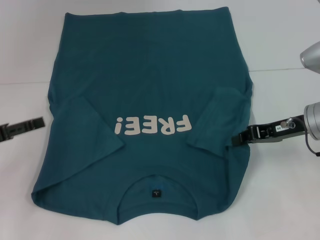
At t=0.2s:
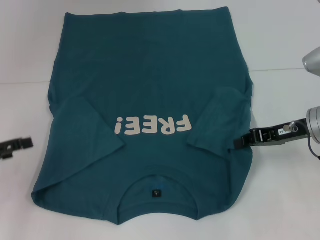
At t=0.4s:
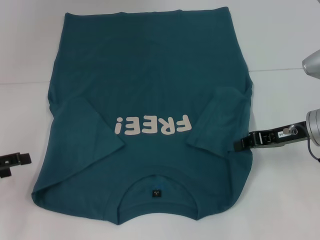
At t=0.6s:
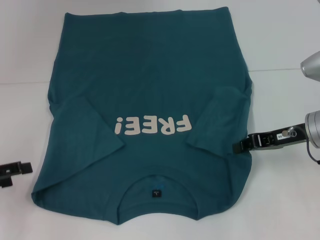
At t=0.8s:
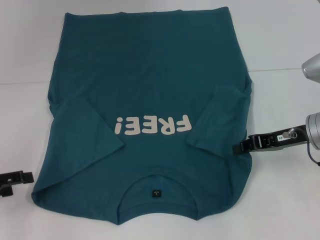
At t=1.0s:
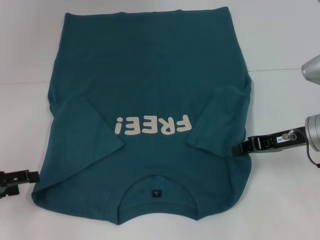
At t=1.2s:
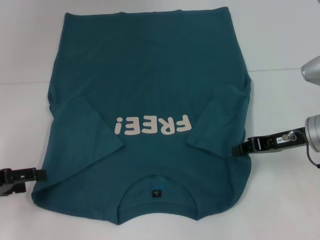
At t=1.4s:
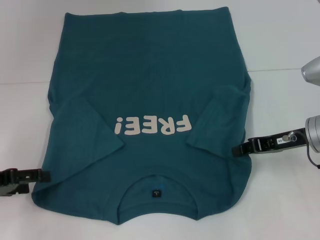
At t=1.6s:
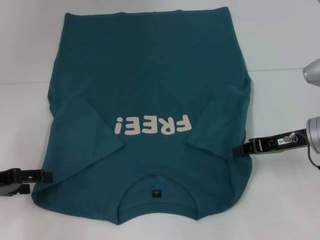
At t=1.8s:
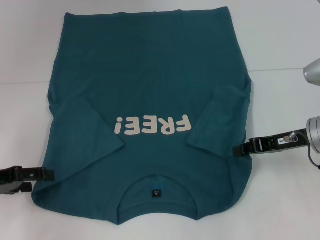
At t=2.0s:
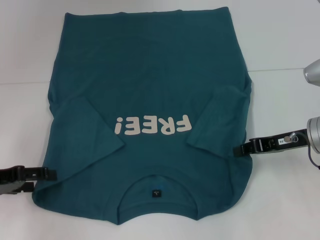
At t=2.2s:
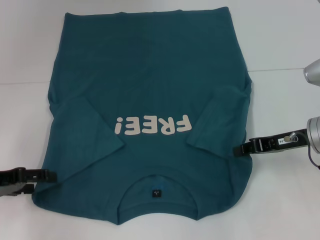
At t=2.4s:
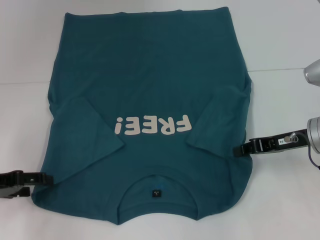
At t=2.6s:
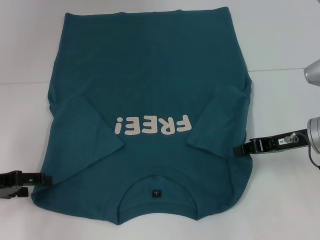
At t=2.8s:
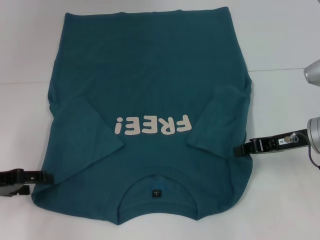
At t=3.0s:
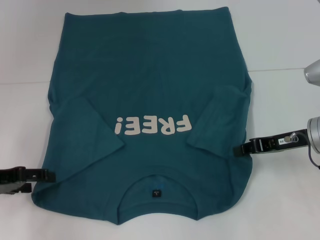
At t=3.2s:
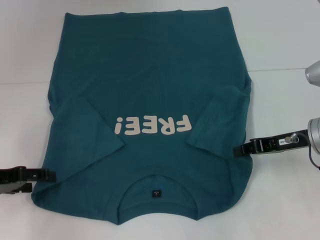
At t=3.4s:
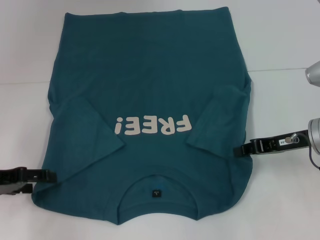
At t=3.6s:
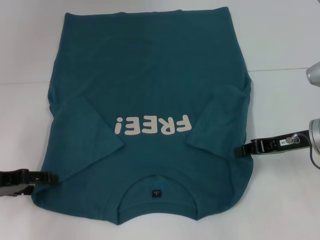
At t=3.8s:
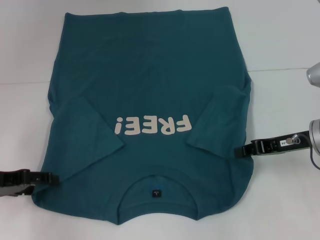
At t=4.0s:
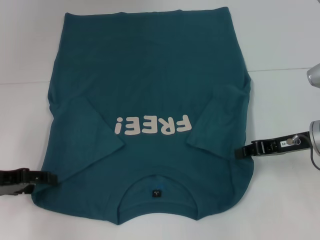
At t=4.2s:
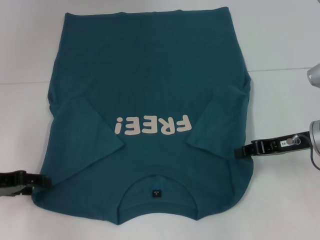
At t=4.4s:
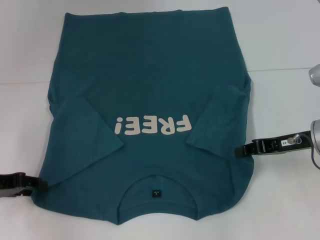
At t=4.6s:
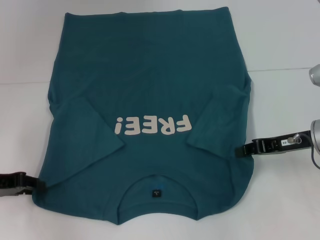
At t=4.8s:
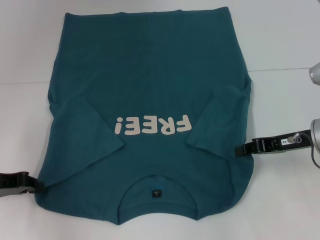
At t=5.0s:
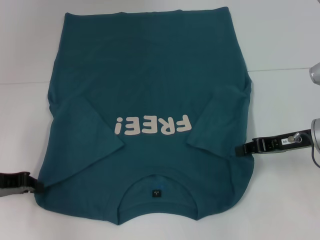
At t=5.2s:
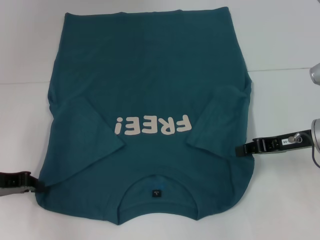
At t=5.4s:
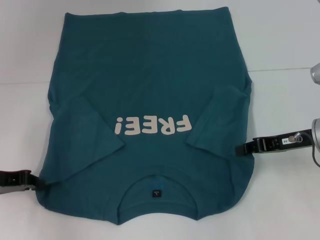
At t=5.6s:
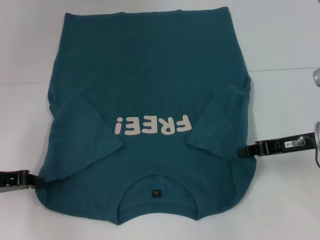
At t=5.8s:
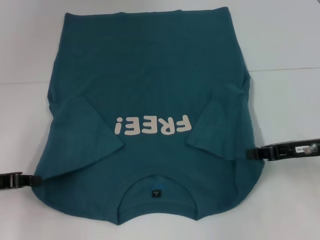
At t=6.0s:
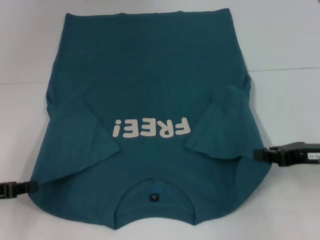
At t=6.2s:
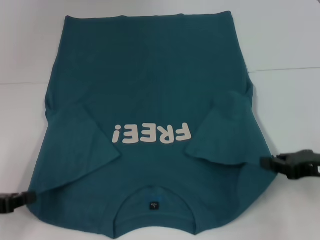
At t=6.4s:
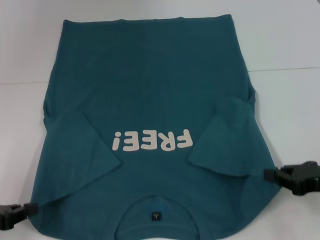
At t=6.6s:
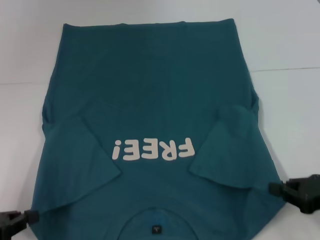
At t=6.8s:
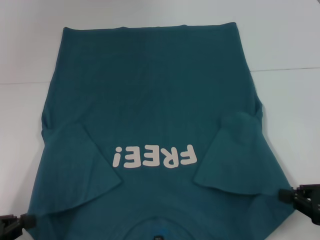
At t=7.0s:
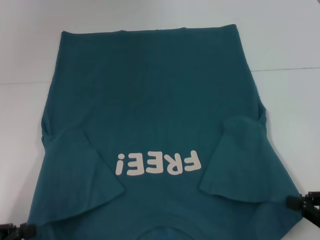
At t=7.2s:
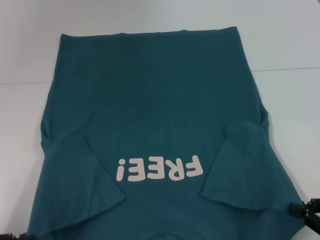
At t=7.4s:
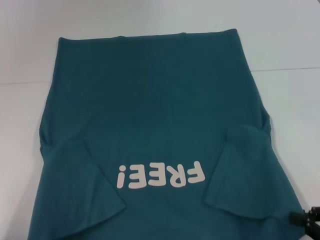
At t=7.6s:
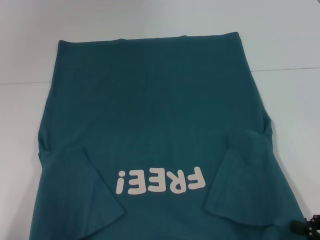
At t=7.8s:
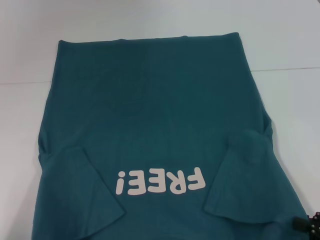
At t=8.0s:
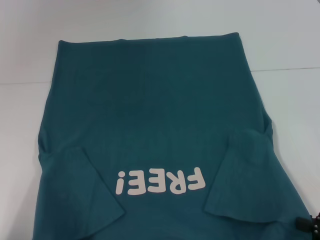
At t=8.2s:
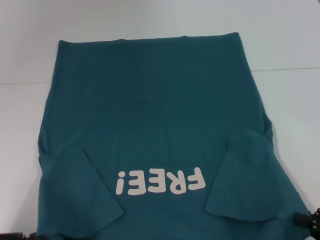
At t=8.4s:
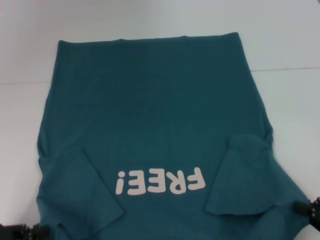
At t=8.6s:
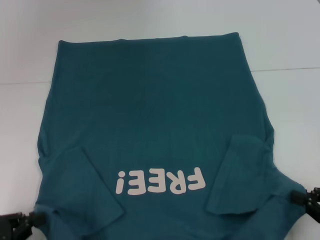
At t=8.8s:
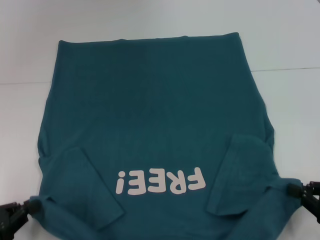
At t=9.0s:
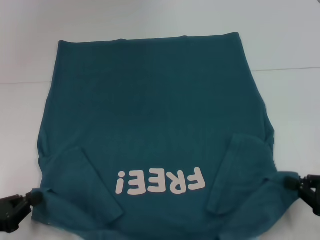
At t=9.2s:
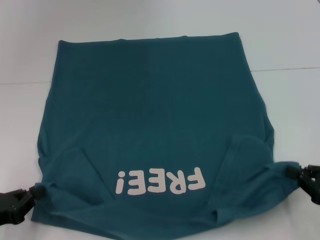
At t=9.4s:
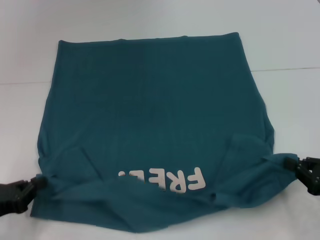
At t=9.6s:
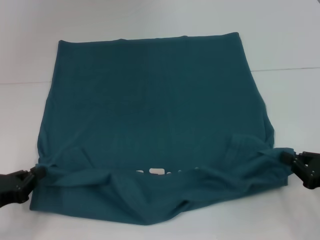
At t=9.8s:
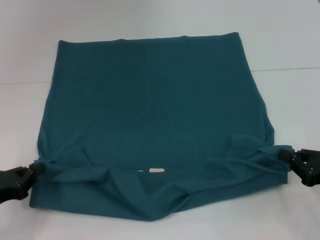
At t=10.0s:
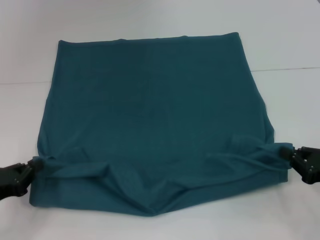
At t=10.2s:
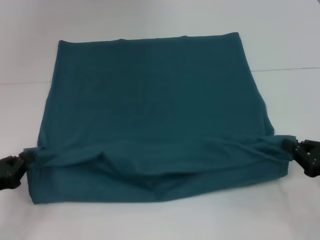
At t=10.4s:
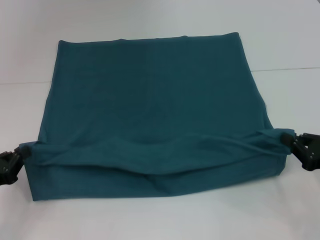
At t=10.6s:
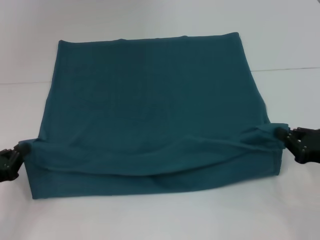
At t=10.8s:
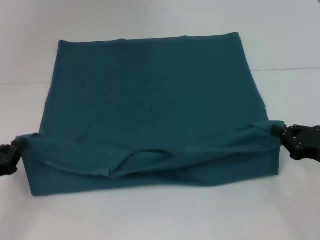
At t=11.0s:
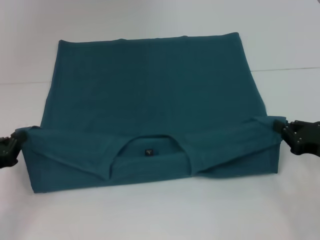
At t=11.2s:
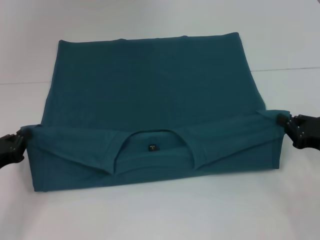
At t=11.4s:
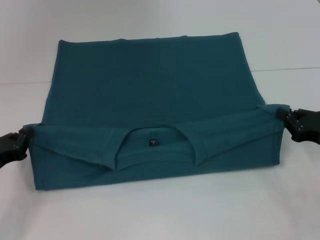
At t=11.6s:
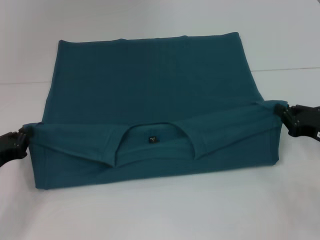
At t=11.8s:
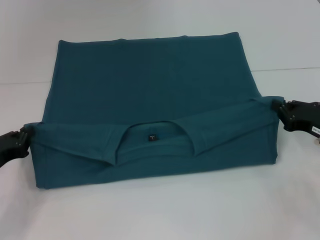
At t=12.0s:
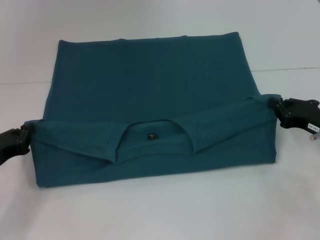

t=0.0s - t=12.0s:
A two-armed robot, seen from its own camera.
Step, t=0.0s - t=6.0s: Grab the bottom left corner with your left hand.
t=1.6s - t=3.0s: The two grippers keep their place.
t=3.0s - t=4.4s: Both grippers stay put.
t=4.4s - t=6.0s: The left gripper closes up. The right gripper changes place by some 5 cm.
t=6.0s - t=7.6s: Both grippers travel together backward, some 15 cm.
t=7.6s - t=9.0s: The left gripper moves forward, about 5 cm.
t=9.0s - t=10.4s: The right gripper moves roughly 5 cm.
t=10.4s - t=12.0s: Both grippers move forward, about 5 cm.

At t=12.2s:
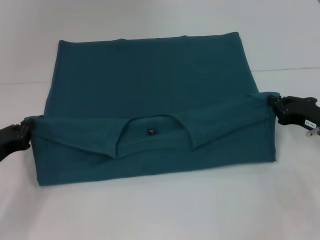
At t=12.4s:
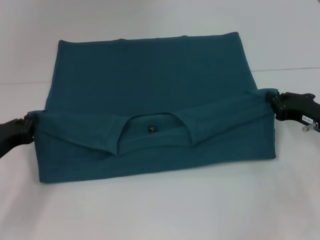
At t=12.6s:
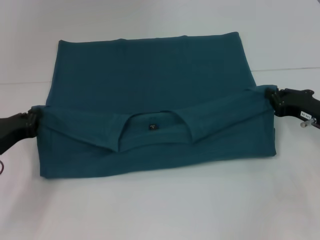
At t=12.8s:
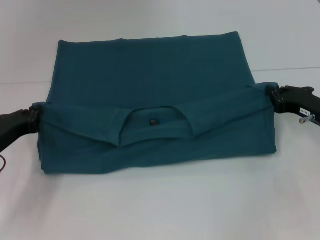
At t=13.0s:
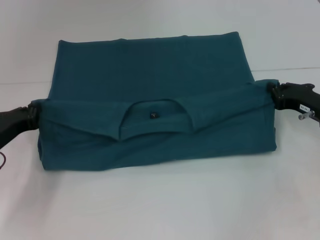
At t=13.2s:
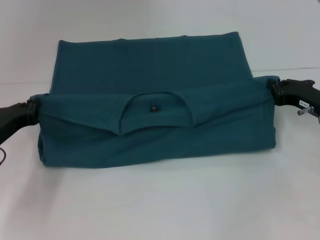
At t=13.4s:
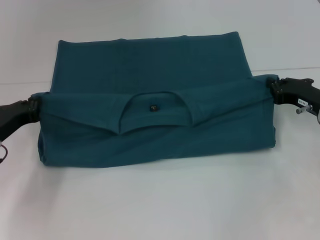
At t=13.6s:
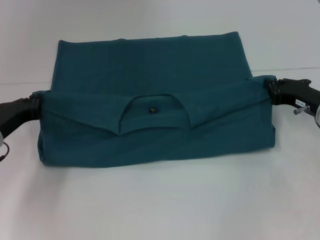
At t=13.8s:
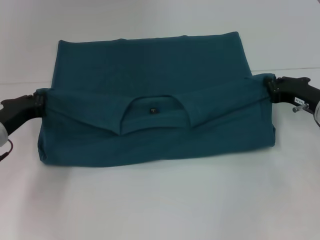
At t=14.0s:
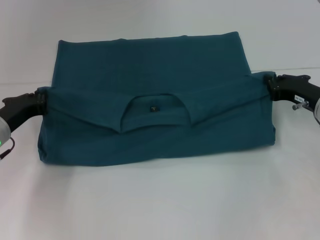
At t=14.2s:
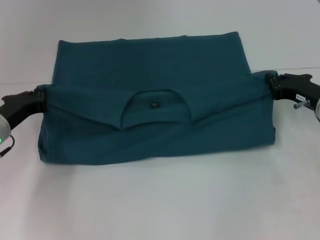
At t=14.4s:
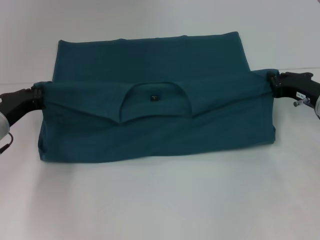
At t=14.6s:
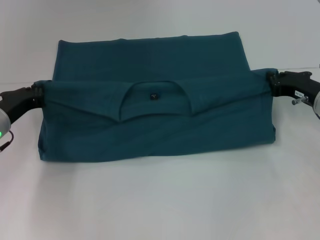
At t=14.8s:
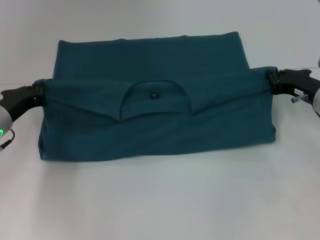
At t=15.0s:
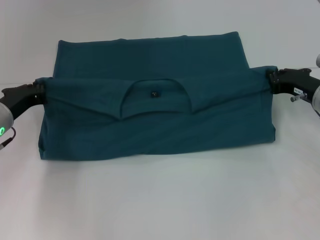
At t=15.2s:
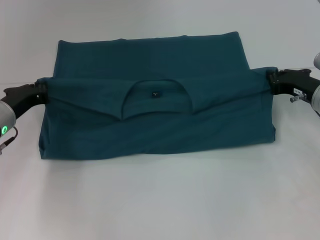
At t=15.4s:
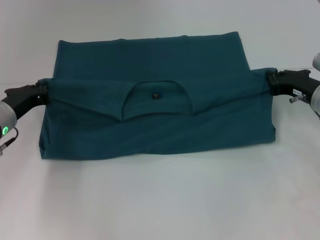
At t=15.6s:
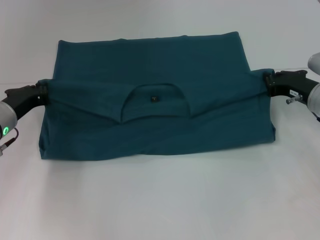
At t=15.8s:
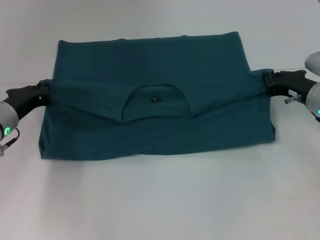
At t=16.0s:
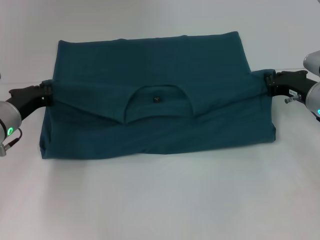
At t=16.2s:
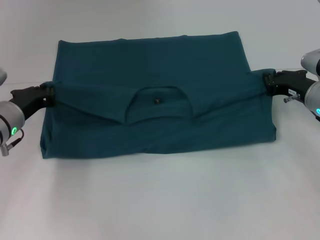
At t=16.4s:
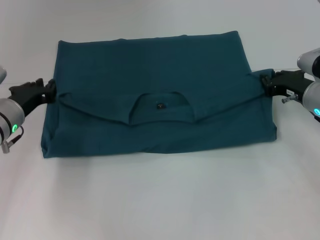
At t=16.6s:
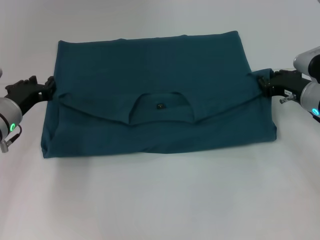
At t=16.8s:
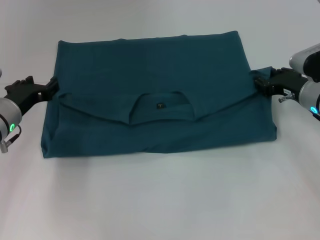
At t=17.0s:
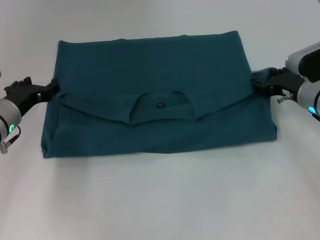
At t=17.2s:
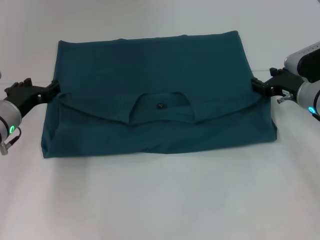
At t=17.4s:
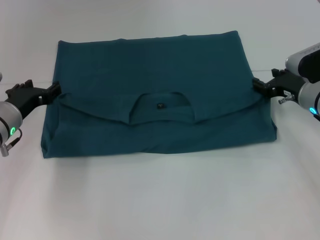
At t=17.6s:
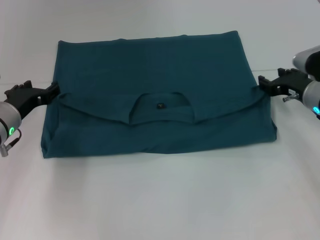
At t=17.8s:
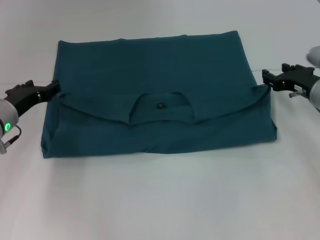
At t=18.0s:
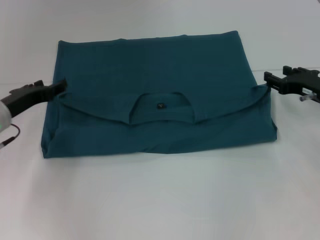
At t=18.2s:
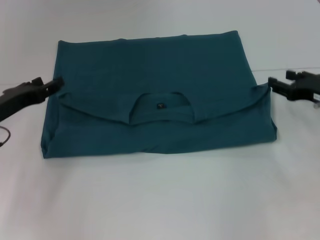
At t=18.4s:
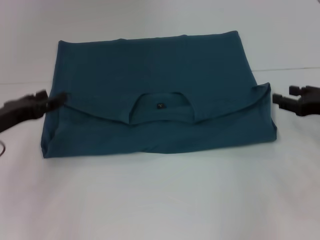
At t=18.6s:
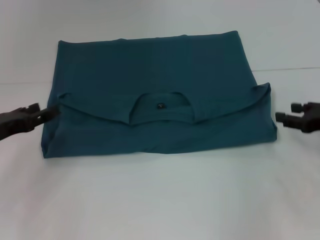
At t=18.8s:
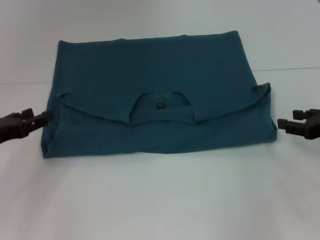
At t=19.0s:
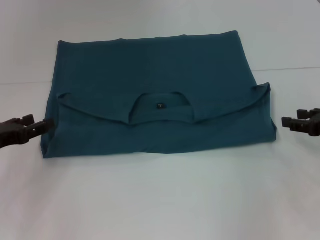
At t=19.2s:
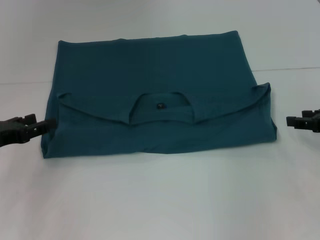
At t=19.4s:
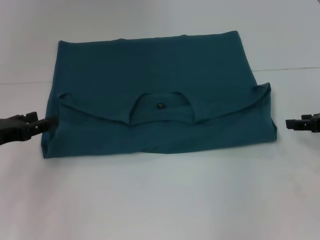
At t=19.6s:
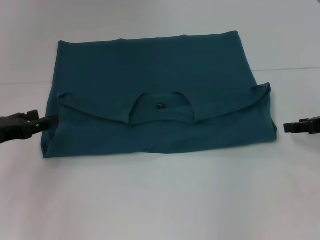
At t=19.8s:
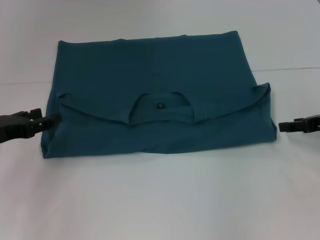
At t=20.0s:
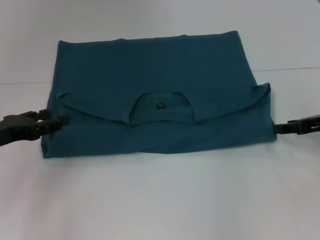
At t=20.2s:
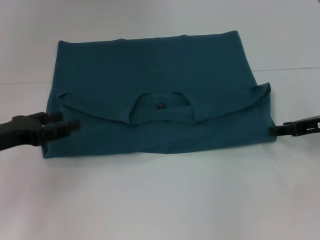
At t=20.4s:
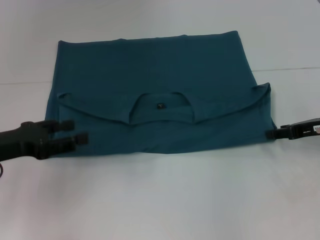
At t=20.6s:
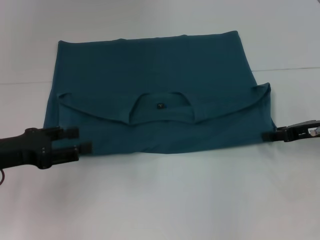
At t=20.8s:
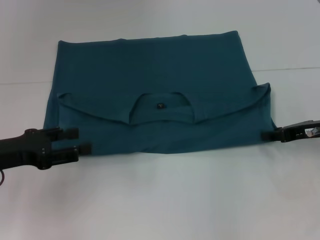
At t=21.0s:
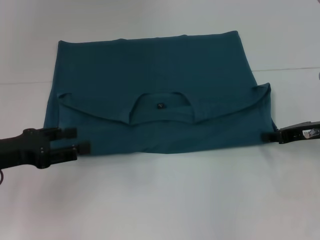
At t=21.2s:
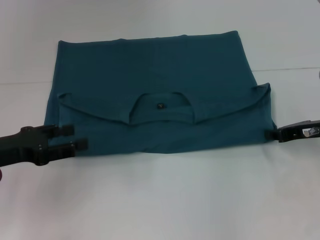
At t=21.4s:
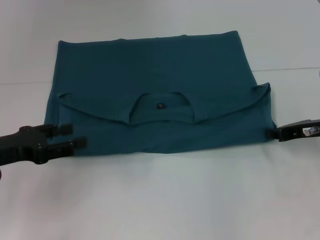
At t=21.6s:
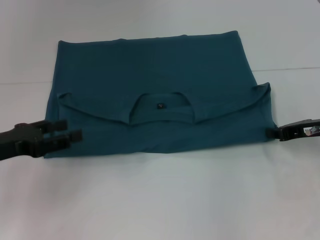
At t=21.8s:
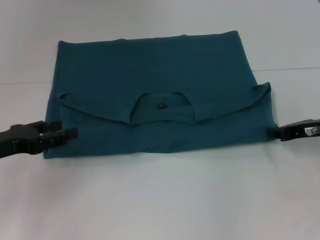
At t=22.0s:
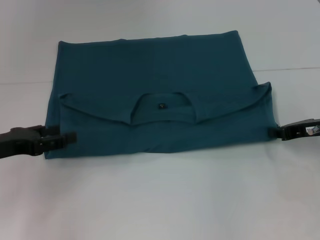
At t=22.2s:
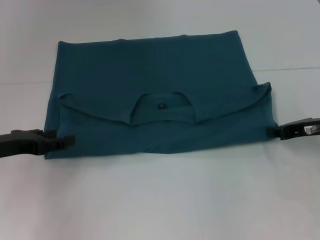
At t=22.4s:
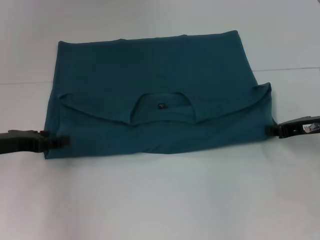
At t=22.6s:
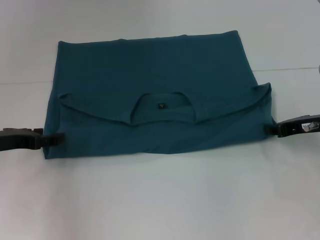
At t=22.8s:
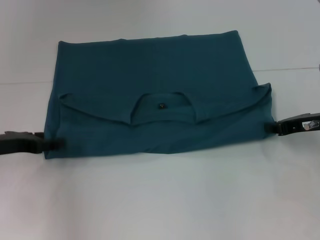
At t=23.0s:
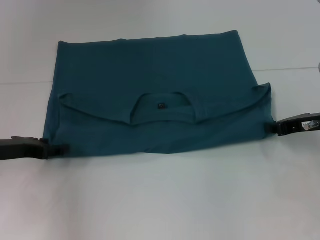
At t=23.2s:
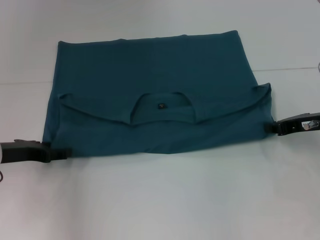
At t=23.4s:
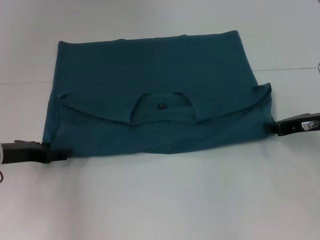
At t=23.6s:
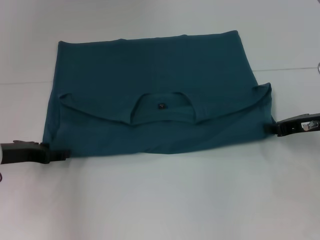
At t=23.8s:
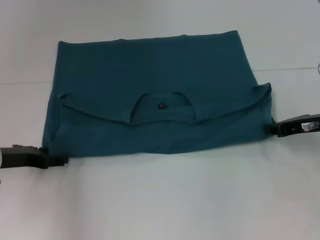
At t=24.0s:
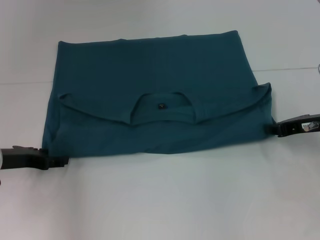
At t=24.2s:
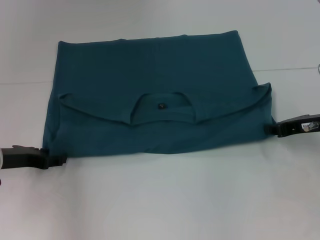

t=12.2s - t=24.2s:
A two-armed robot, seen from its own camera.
Step, t=12.2s - t=17.0s: Fold the clothes to the left.
Step, t=12.2s - t=17.0s: Fold the clothes to the right.
t=12.2s - t=13.8s: The left gripper goes about 5 cm forward.
t=13.8s - t=16.6s: The grippers stay close to where they were, moving slightly.
t=16.6s - t=18.2s: The right gripper changes place by roughly 5 cm, and opens its fingers. The left gripper moves some 5 cm, and opens up.
t=19.8s - t=21.2s: The right gripper closes its fingers.
t=21.2s - t=22.6s: The left gripper moves roughly 5 cm.
t=22.6s - t=24.2s: The grippers make only small movements.
